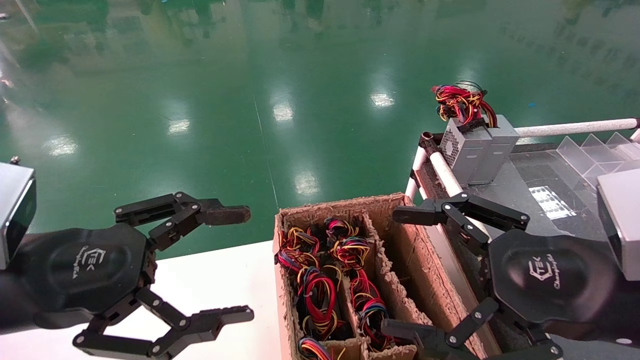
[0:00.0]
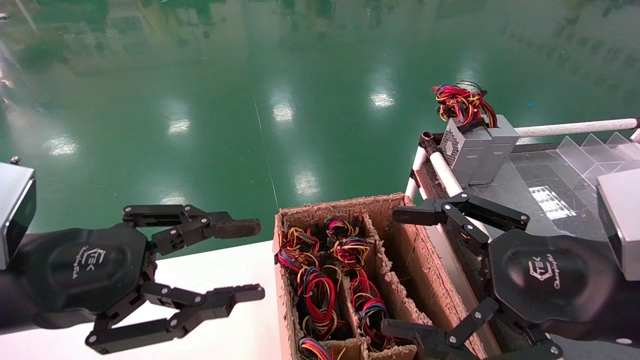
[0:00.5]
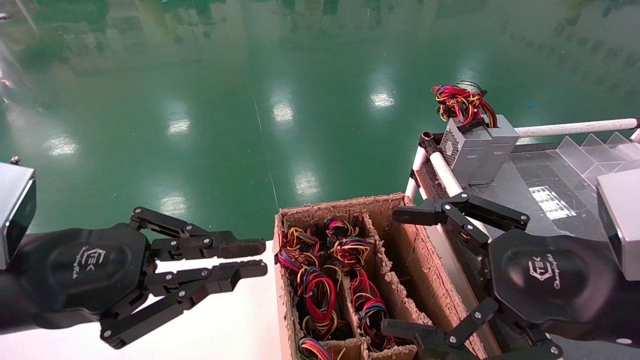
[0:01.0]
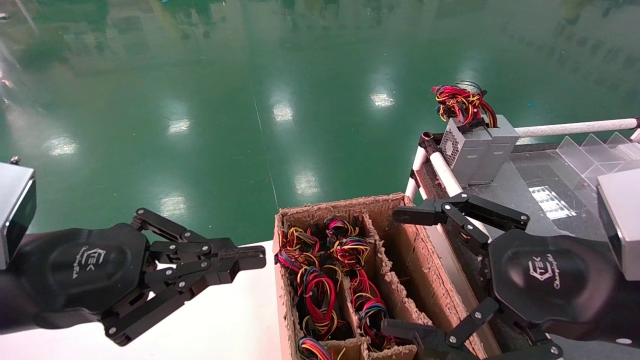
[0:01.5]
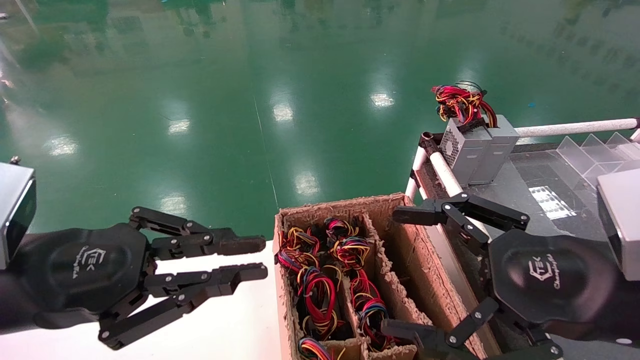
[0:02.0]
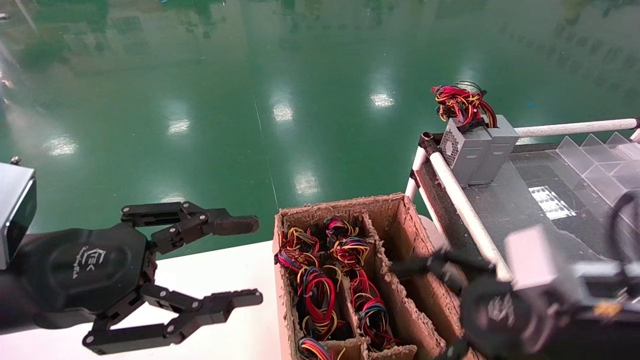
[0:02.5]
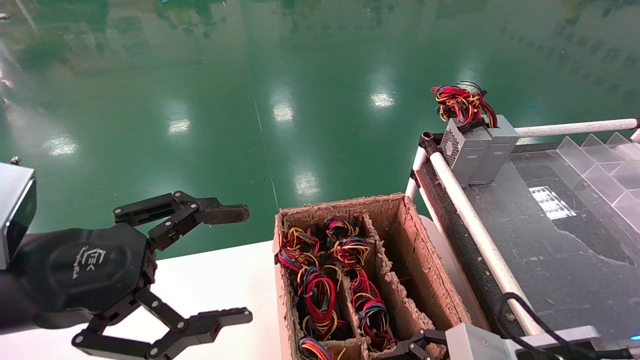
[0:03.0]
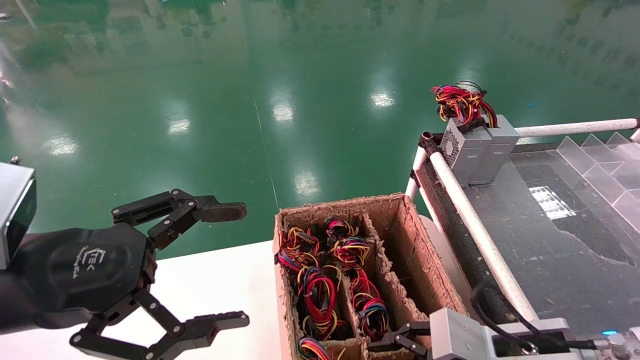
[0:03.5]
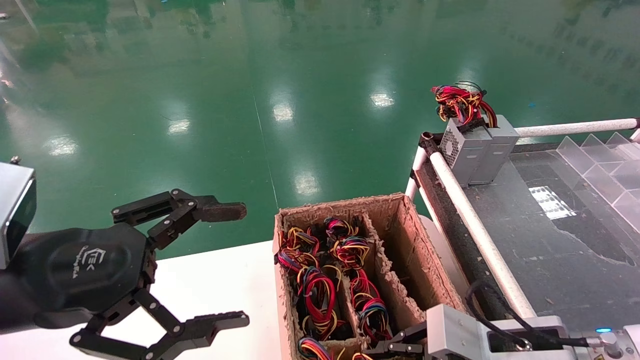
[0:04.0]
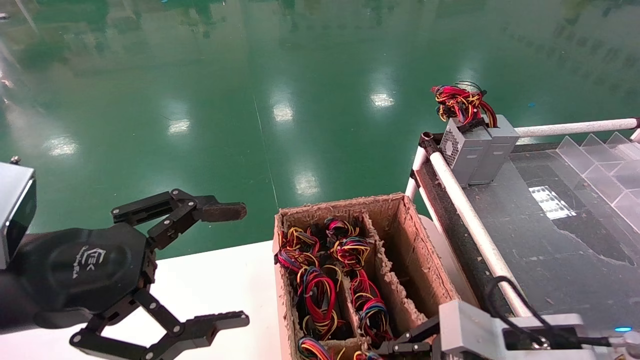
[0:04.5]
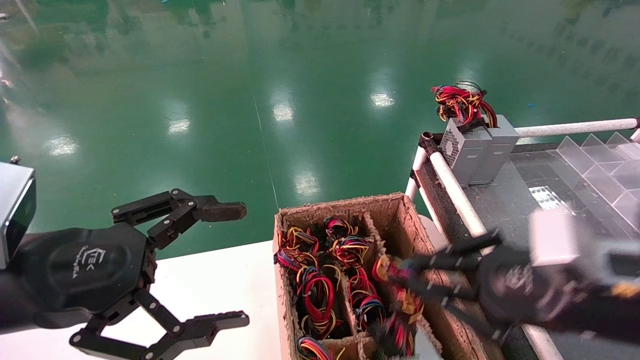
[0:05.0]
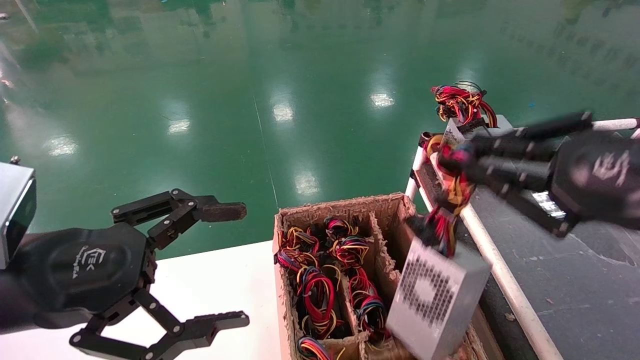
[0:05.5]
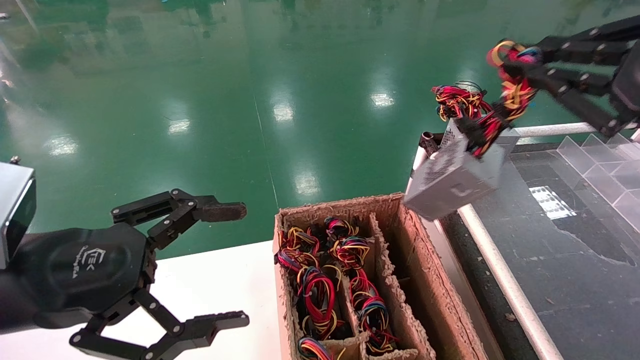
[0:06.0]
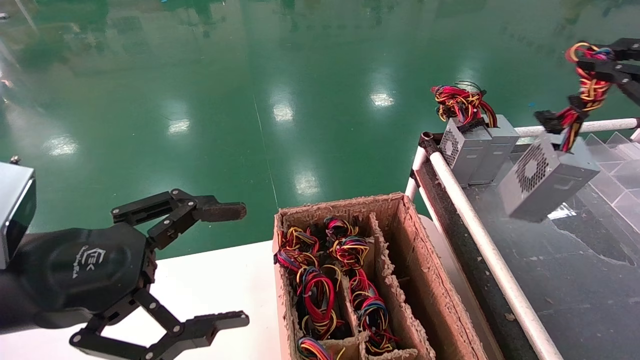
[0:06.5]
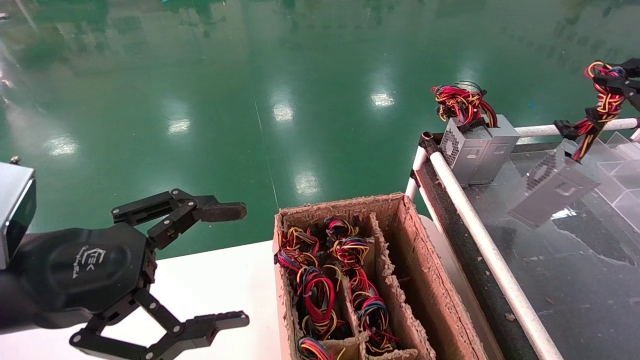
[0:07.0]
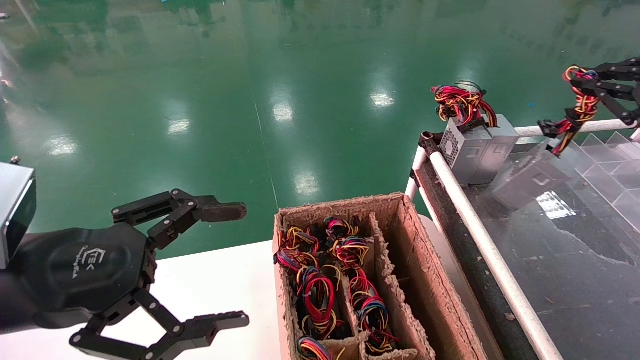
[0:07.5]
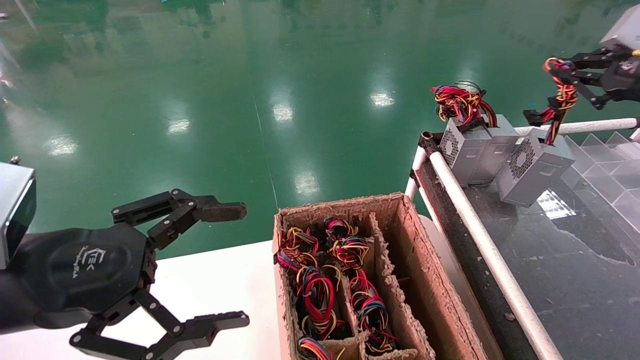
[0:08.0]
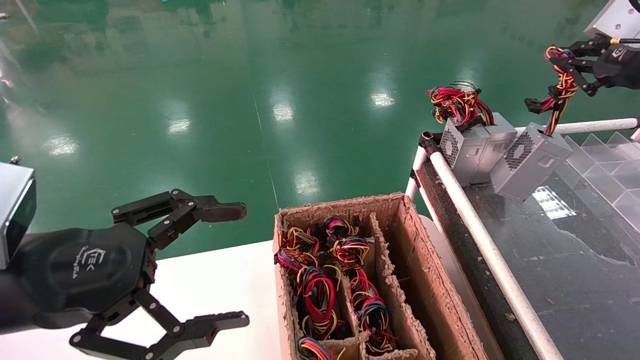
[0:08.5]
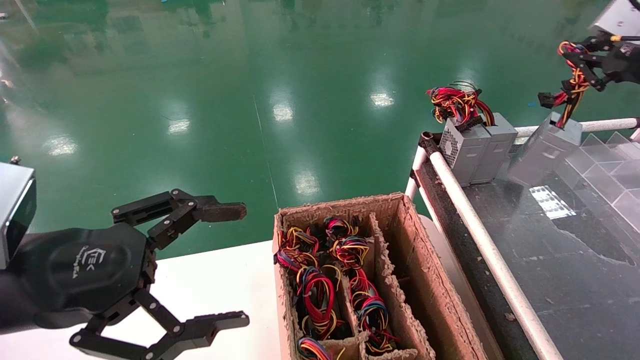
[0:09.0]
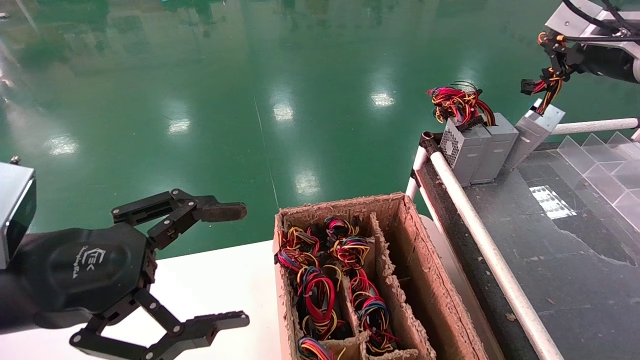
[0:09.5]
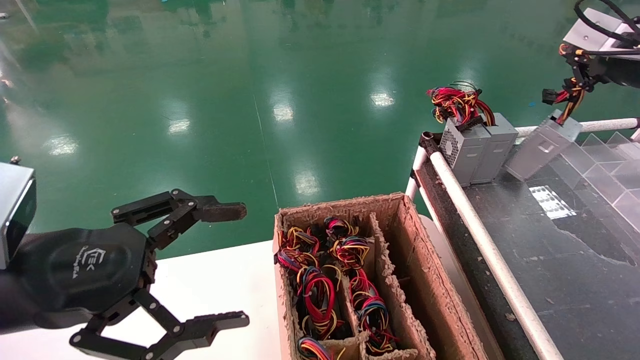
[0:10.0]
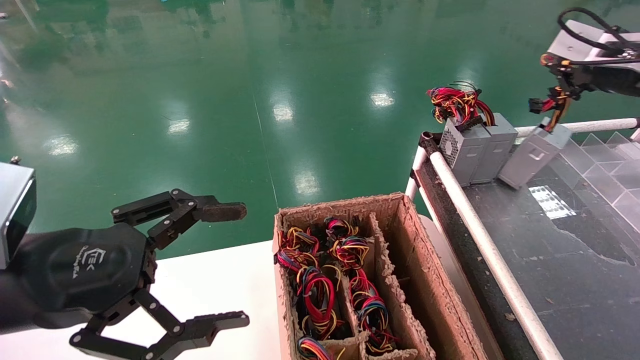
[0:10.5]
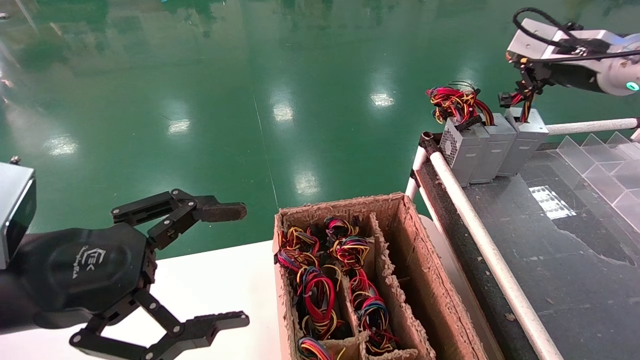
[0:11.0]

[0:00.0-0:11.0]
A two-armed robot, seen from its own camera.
Step, 0:01.5 to 0:04.5: Grab and lift the power supply from the large box.
0:00.0 to 0:02.0: The left gripper closes up.
0:02.0 to 0:03.5: The right gripper shifts approximately 10 cm downward. The left gripper opens.
0:03.5 to 0:05.5: The right gripper heads upward, covering about 20 cm, and closes up.
0:05.5 to 0:07.5: The right gripper heads to the right and forward, covering about 20 cm.
0:07.5 to 0:09.0: The right gripper moves forward, some 5 cm.
0:09.0 to 0:11.0: The right gripper travels to the left by approximately 5 cm.

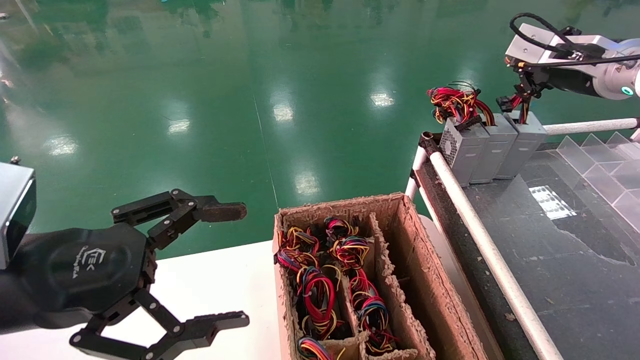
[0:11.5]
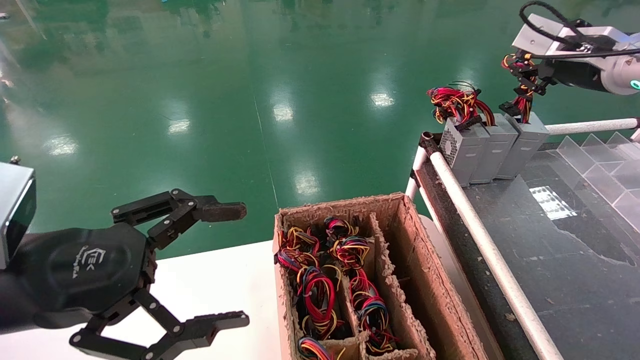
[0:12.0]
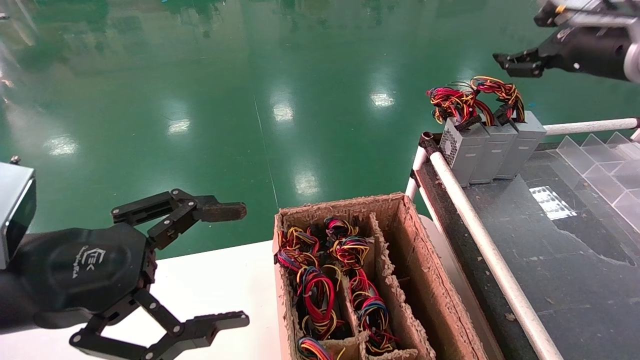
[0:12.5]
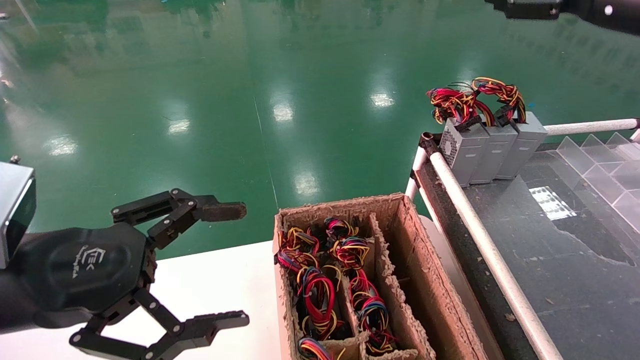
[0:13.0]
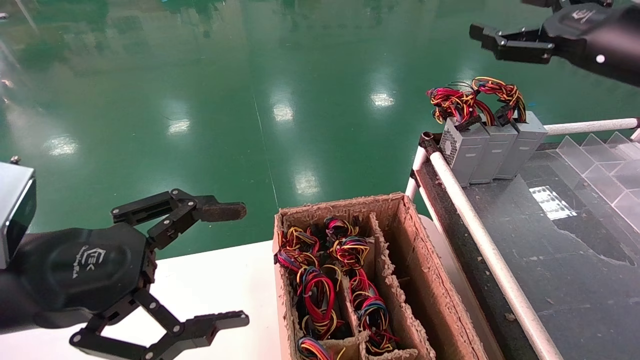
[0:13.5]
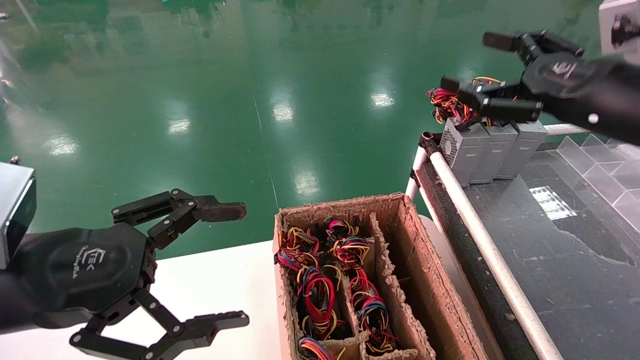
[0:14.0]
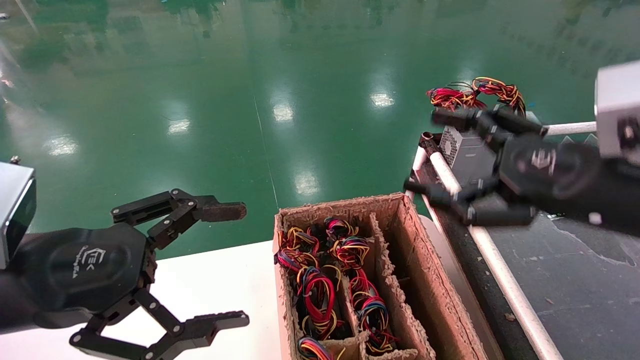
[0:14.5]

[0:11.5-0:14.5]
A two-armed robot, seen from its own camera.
0:11.5 to 0:13.0: The right gripper shifts approximately 5 cm backward, and opens.
0:13.0 to 0:14.5: The right gripper shifts some 20 cm downward, backward and to the left.
